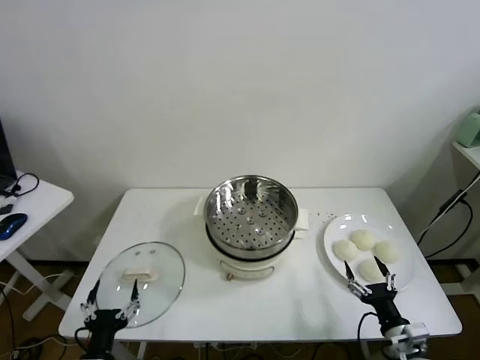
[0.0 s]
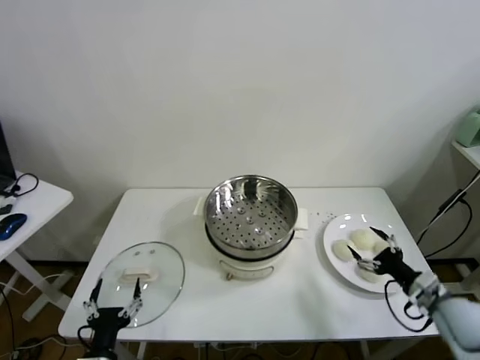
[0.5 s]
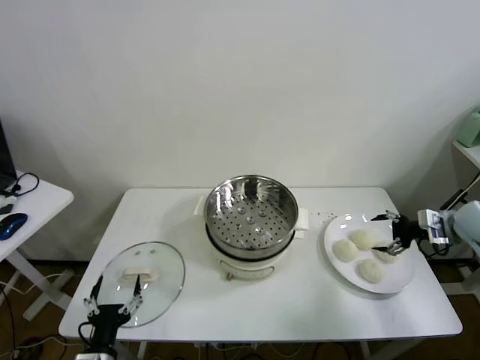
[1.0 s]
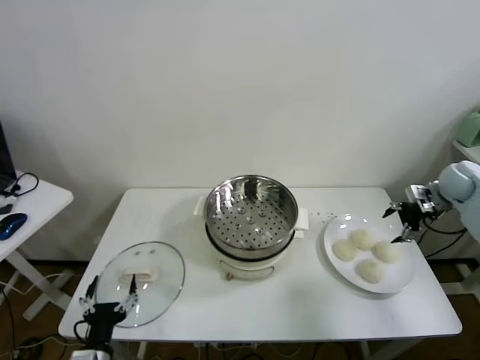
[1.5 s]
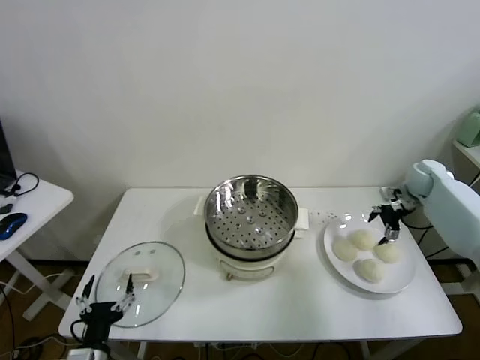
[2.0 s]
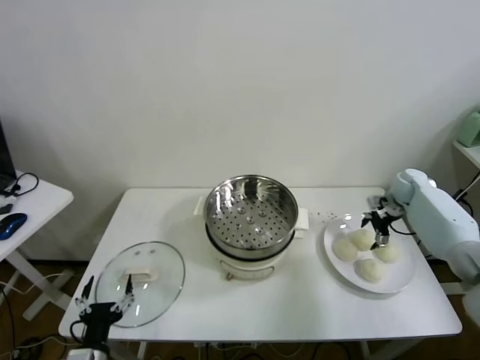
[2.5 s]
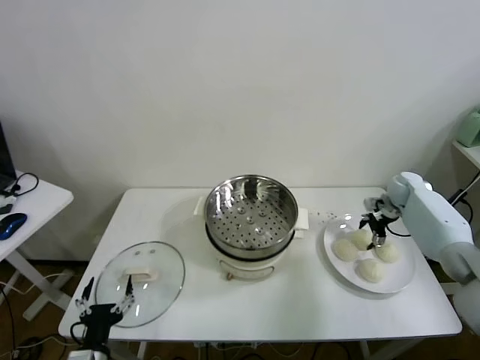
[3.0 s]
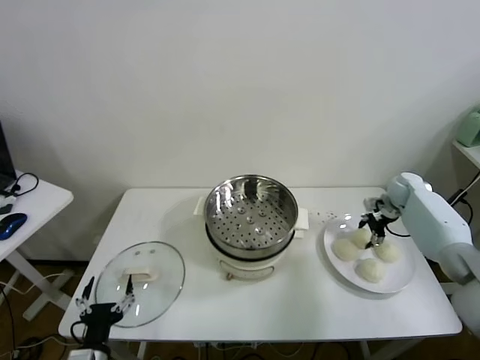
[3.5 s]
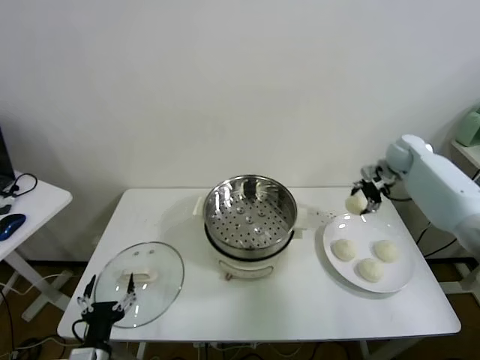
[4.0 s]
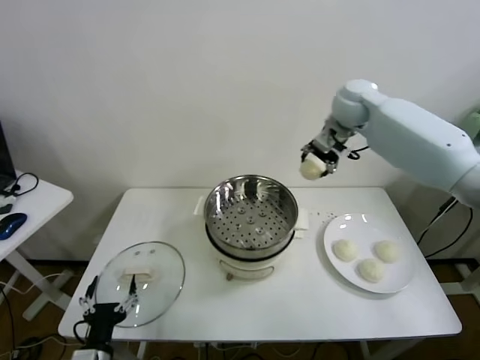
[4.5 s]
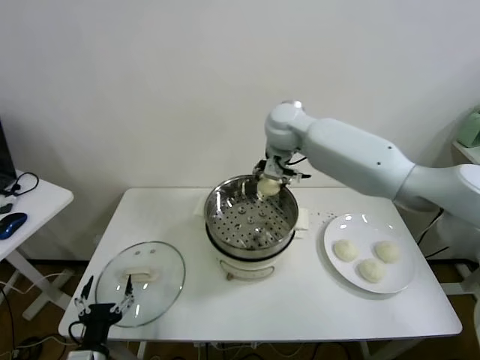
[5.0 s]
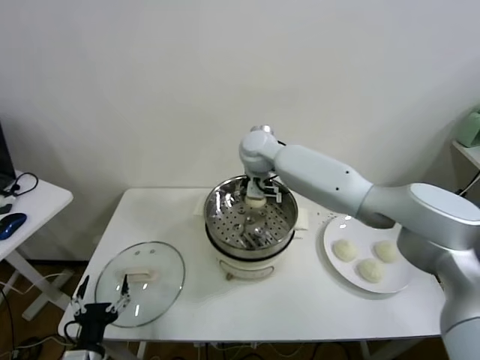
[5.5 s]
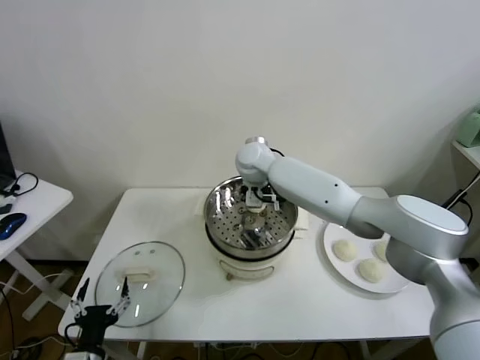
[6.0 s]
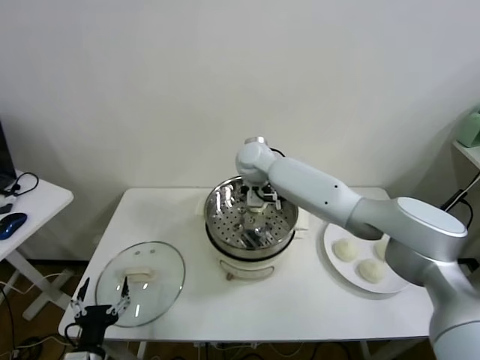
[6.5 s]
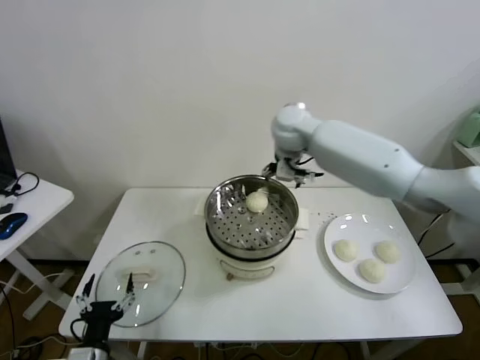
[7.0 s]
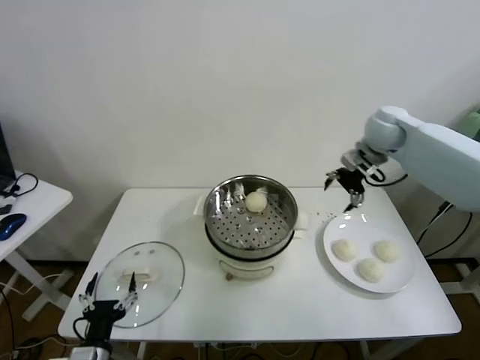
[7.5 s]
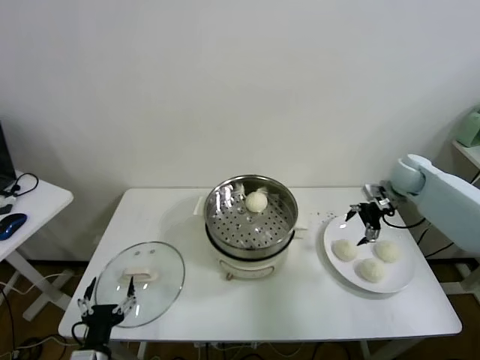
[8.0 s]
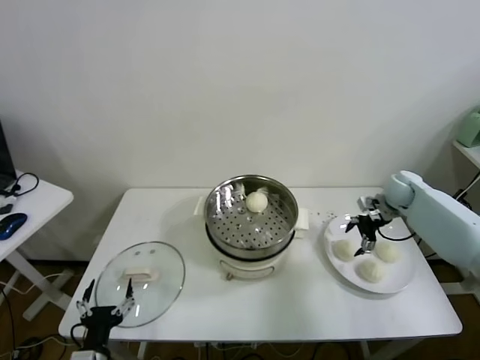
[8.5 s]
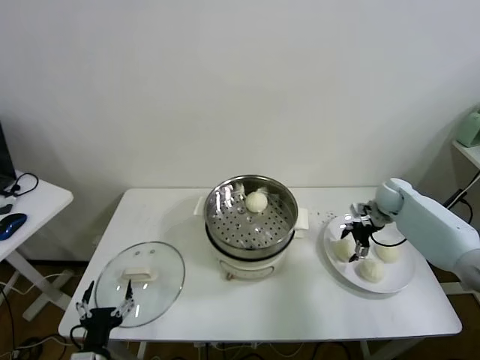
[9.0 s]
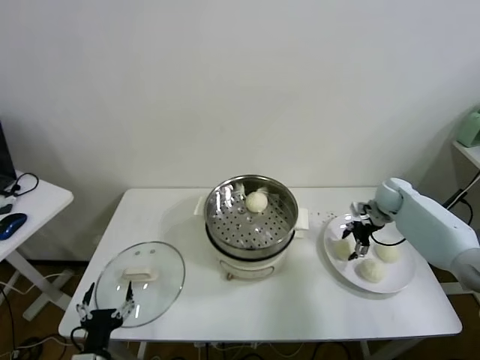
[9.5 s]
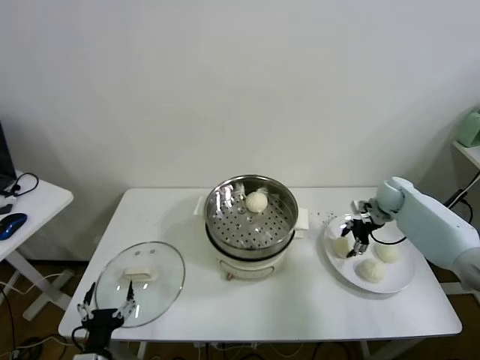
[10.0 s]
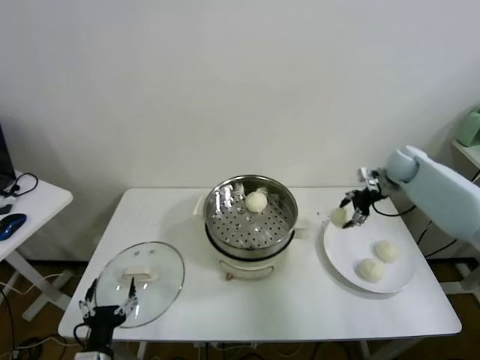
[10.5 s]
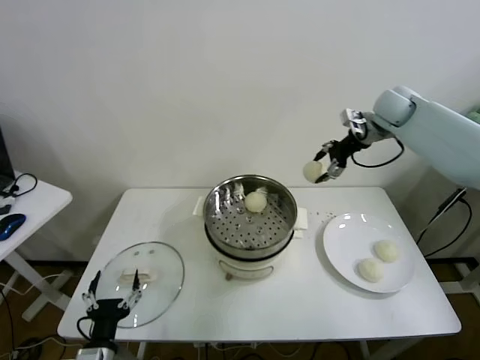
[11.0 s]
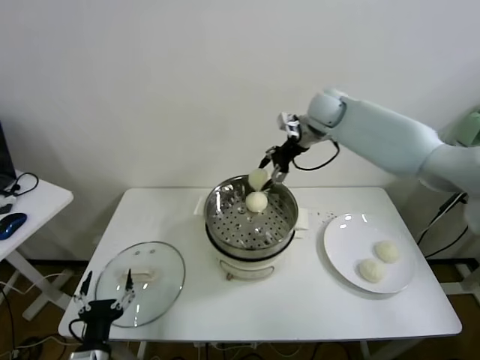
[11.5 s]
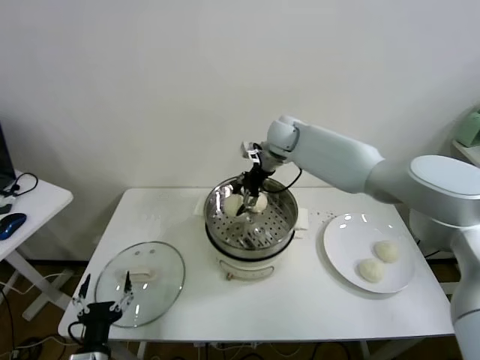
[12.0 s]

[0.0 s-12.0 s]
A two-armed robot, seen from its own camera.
Task of the whole recording: take steamed baozi put them in steamer.
Step, 0.0 to 3.0 s: Grasp the baozi in the plate with right gripper.
Step, 3.5 to 6.5 s: Place the baozi on the steamer with right gripper.
Step, 7.0 to 9.5 s: Grasp the baozi in the plate with right gripper.
2.0 to 4.0 s: The right gripper travels upward and to the left by some 15 cm, and closes.
4.0 to 6.0 s: The right gripper travels to the left by roughly 35 cm, and opens up.
6.0 to 8.0 s: The right gripper goes approximately 40 cm to the right.
8.0 to 10.0 s: The right gripper travels downward by some 5 cm, and closes.
10.0 to 12.0 s: The right gripper goes about 35 cm to the left and upward.

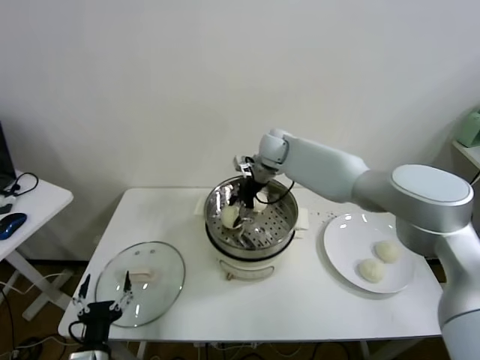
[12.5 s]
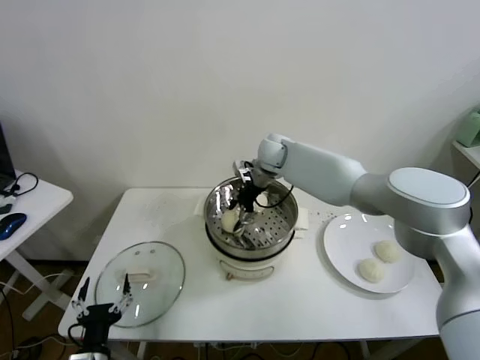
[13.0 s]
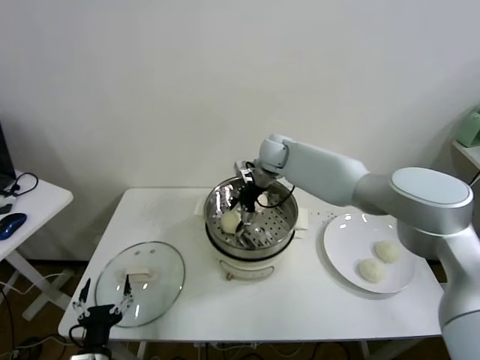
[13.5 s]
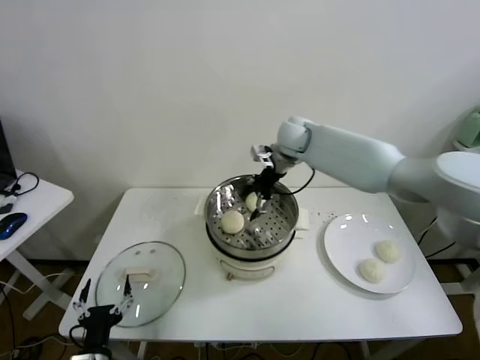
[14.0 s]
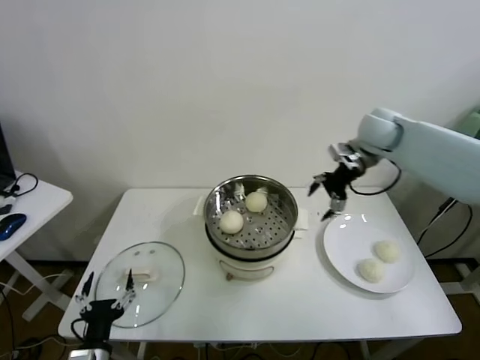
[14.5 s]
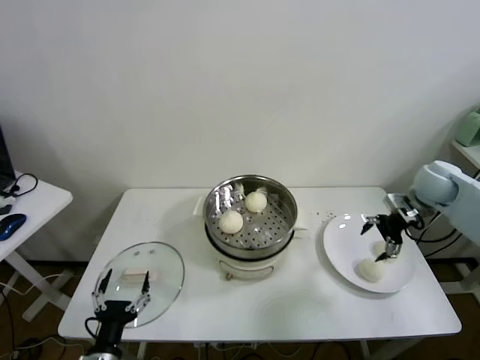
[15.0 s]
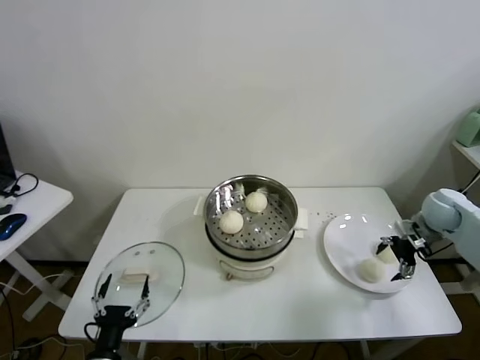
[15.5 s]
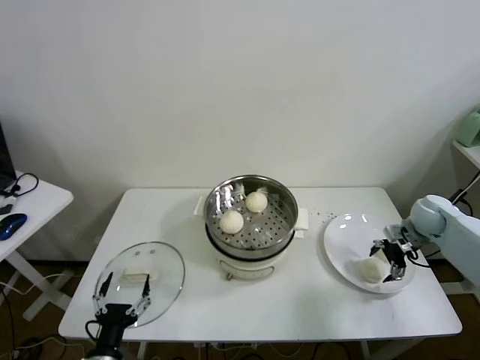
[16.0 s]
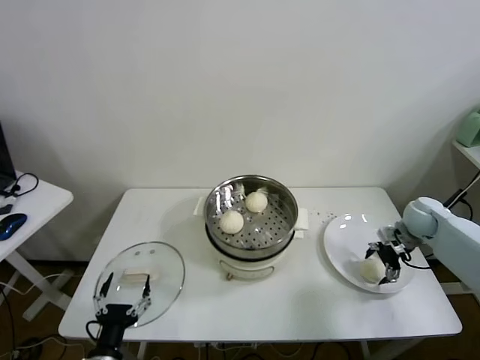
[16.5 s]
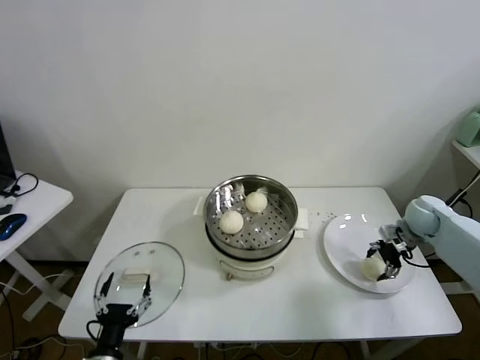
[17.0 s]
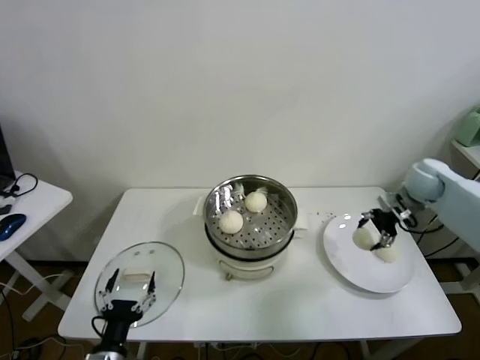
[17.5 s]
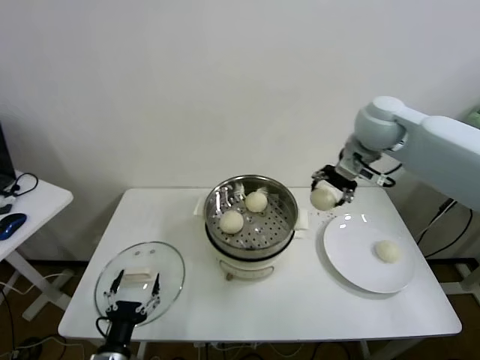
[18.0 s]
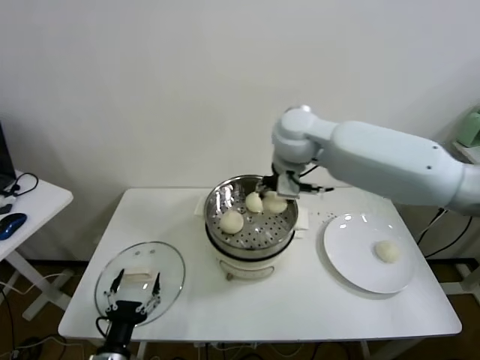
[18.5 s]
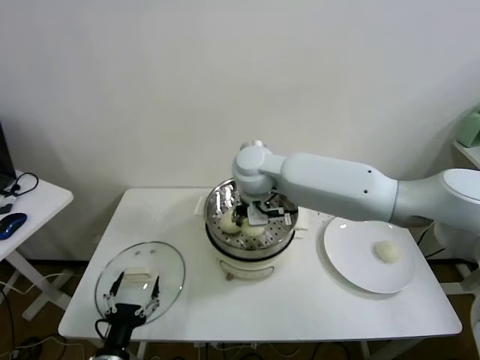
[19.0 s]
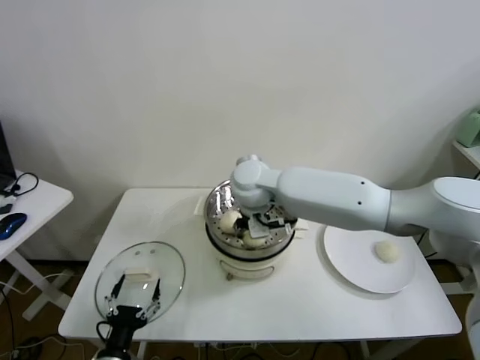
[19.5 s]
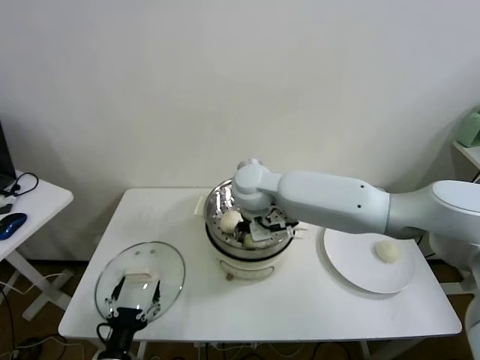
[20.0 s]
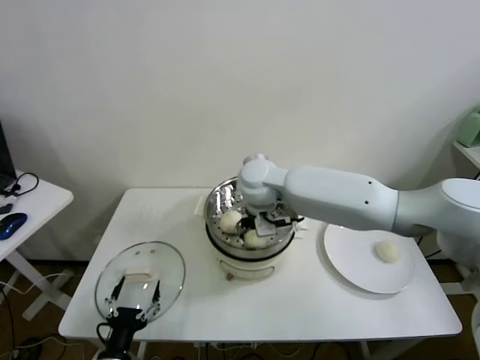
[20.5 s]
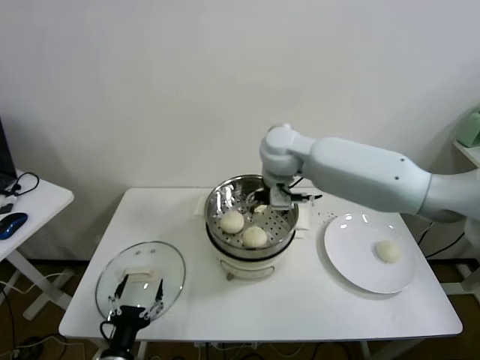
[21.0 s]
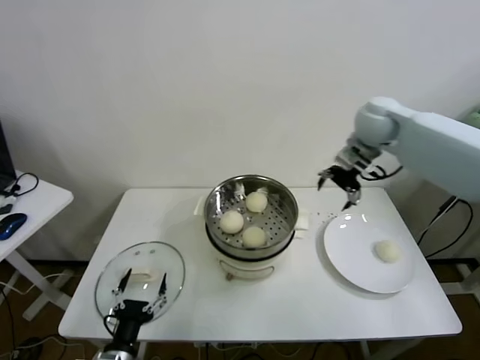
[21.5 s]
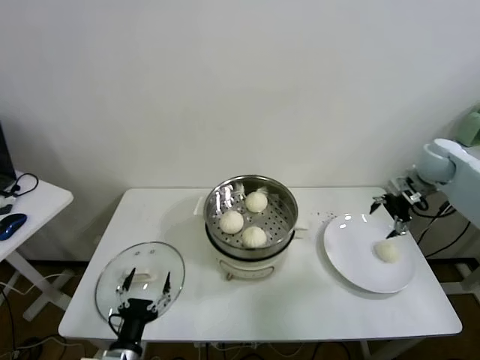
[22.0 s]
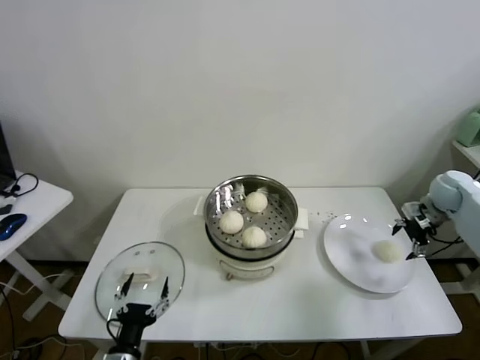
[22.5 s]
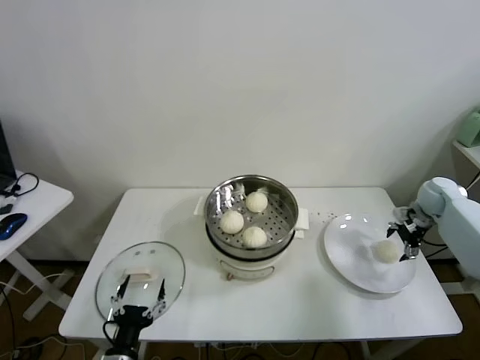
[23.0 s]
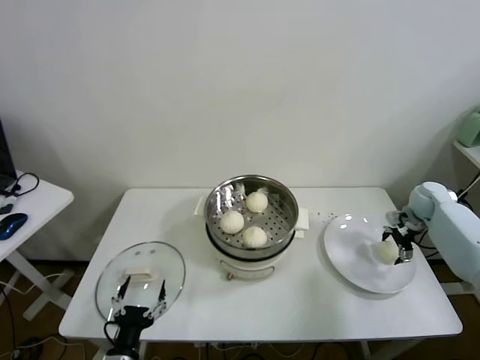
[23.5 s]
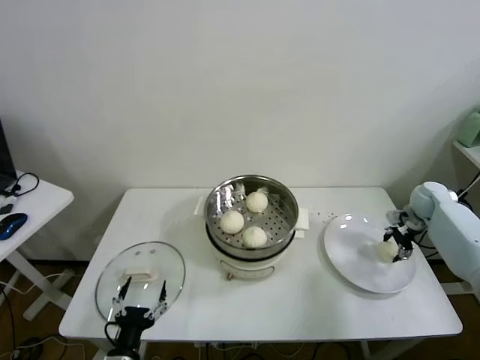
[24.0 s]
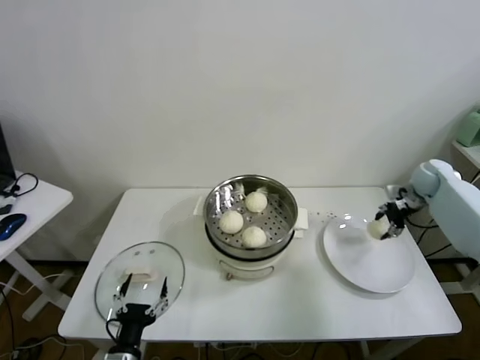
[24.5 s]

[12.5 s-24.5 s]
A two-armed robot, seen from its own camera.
Task of the whole recording: take steamed baozi put them in steamer.
Step, 14.0 to 16.5 s: Grasp the baozi in the plate with right gripper.
Step, 17.0 to 20.5 s: Place the baozi on the steamer with right gripper.
Step, 21.0 to 23.5 s: Grasp the baozi in the plate with right gripper.
12.5 to 14.5 s: The right gripper heads to the right, covering some 25 cm, and opens its fingers.
14.5 to 16.5 s: The right gripper moves downward and to the right, some 25 cm.
16.5 to 18.5 s: The right gripper is displaced to the left and upward by about 40 cm, and closes up.
18.5 to 20.5 s: The right gripper is displaced downward and to the left by about 10 cm, and opens.
20.5 to 22.5 s: The right gripper shifts approximately 50 cm to the right.
22.5 to 24.5 s: The right gripper ends up some 5 cm from where it was, and closes.

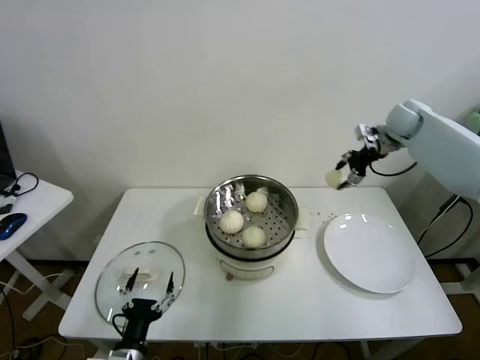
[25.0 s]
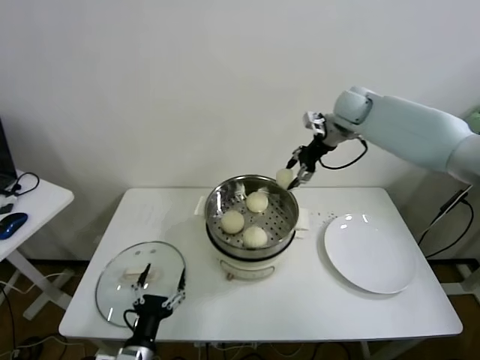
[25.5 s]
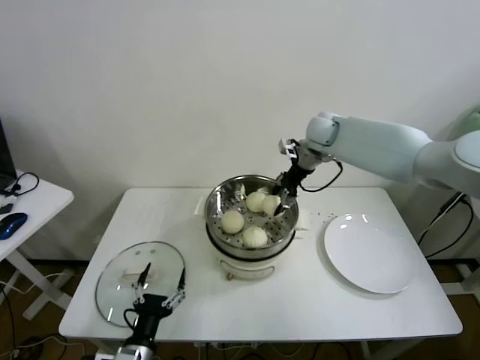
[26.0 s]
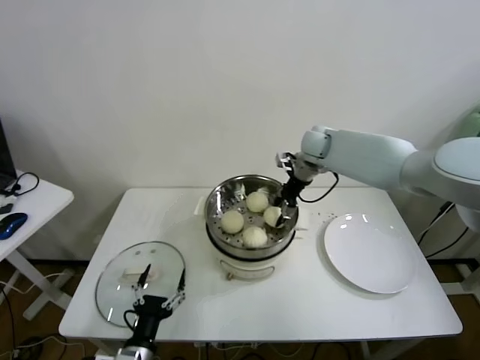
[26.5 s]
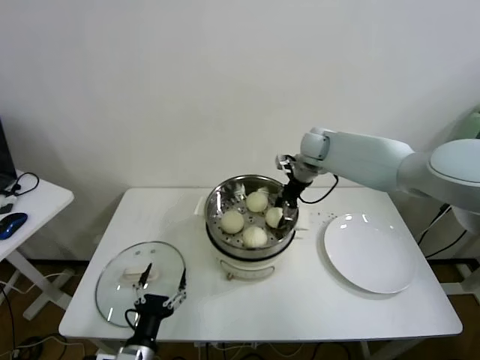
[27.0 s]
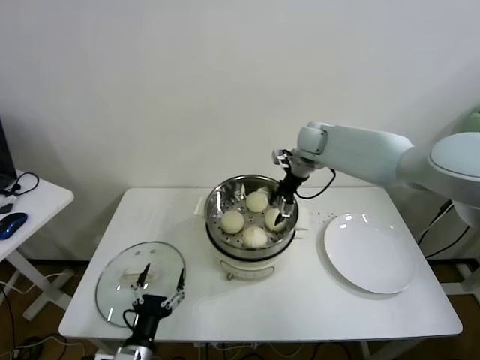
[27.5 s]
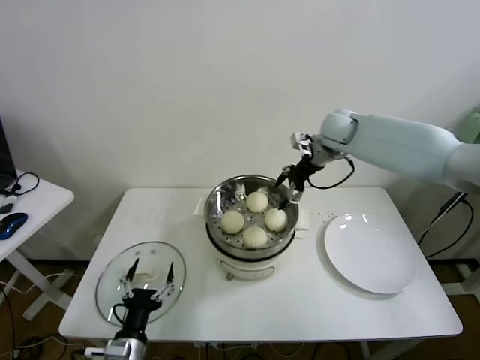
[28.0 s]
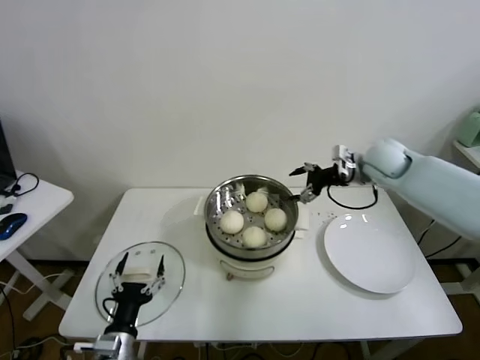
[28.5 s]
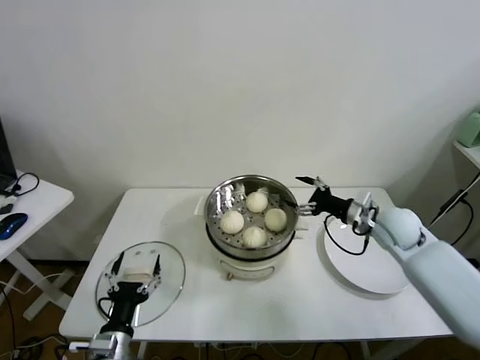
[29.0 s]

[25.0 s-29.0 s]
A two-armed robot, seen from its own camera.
Task of the whole recording: take steamed baozi put them in steamer.
Step, 25.0 to 27.5 s: Place the baozi on the steamer with right gripper.
25.0 to 27.0 s: The right gripper is displaced to the left by roughly 20 cm.
27.0 to 29.0 s: The right gripper travels backward, to the right and downward by roughly 25 cm, and opens its fingers.
